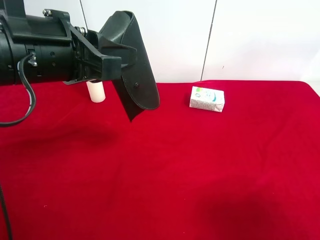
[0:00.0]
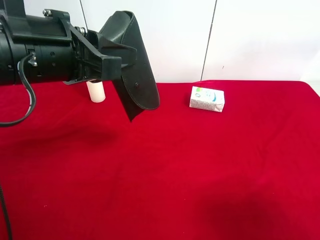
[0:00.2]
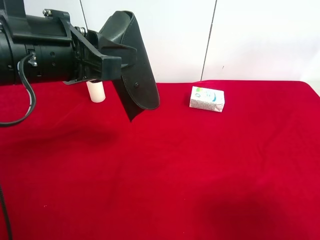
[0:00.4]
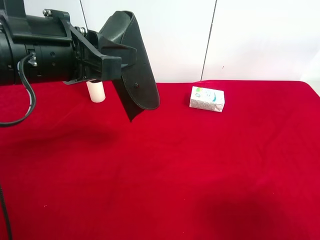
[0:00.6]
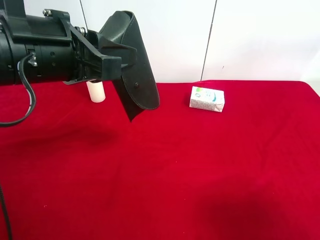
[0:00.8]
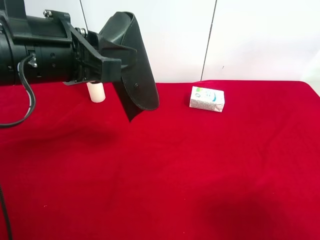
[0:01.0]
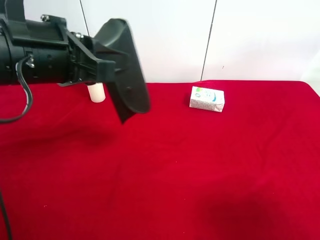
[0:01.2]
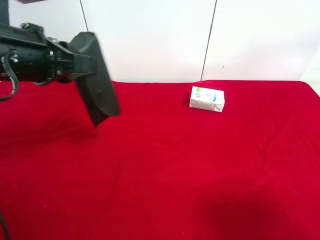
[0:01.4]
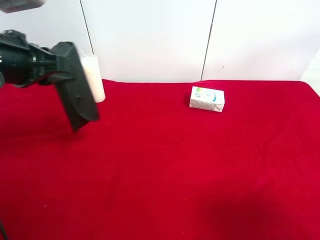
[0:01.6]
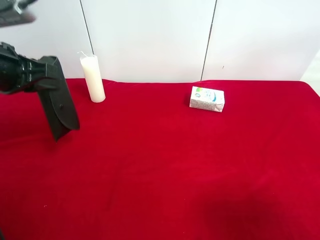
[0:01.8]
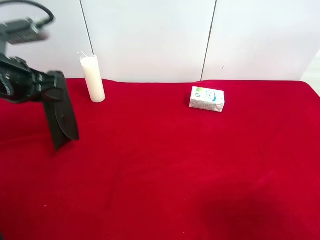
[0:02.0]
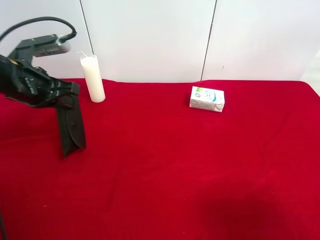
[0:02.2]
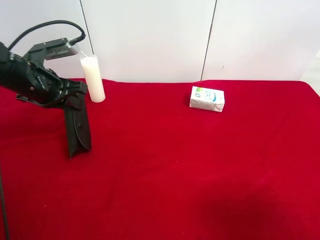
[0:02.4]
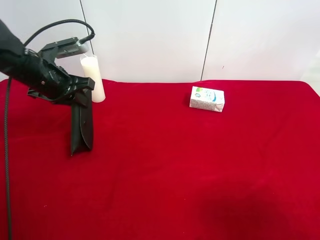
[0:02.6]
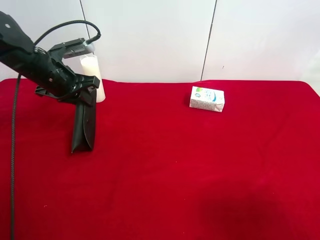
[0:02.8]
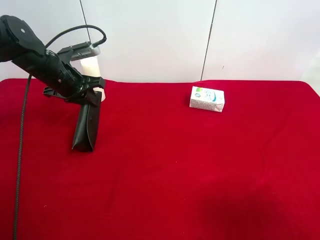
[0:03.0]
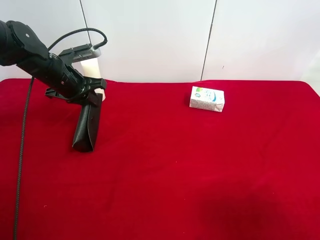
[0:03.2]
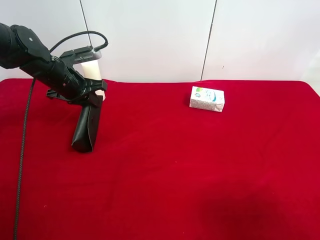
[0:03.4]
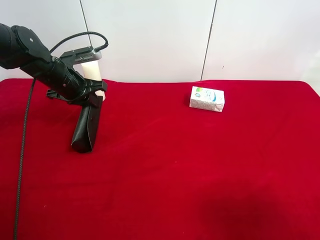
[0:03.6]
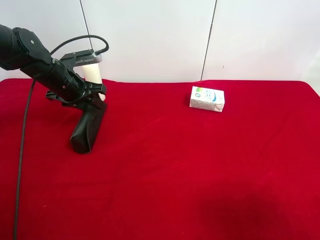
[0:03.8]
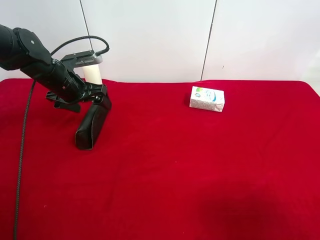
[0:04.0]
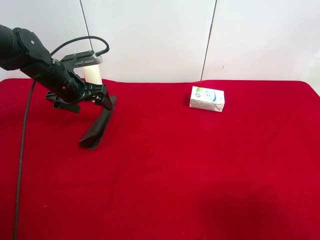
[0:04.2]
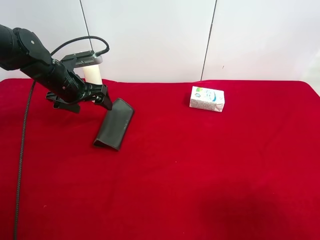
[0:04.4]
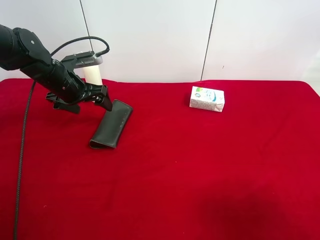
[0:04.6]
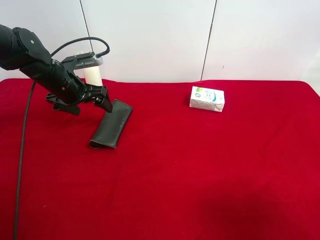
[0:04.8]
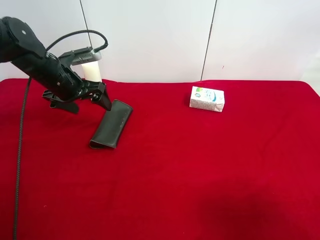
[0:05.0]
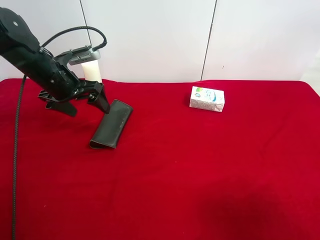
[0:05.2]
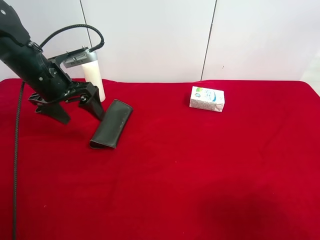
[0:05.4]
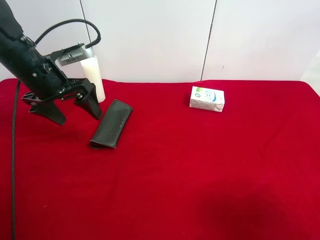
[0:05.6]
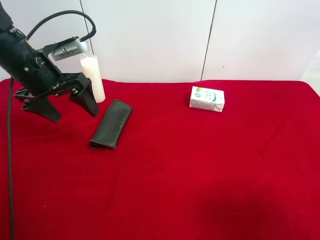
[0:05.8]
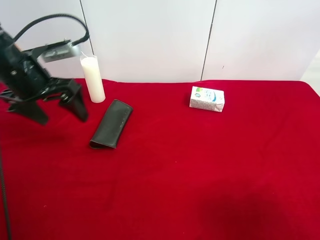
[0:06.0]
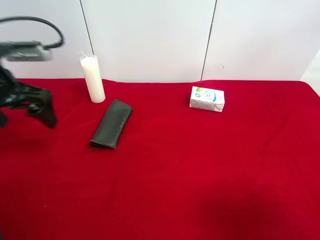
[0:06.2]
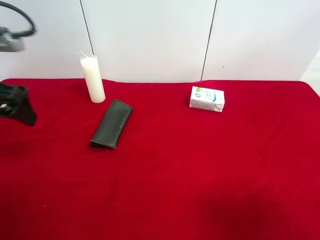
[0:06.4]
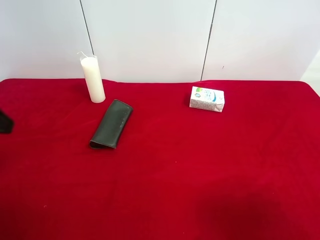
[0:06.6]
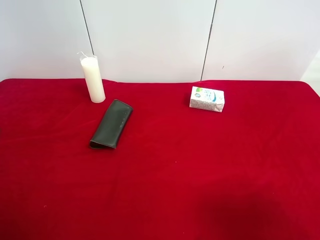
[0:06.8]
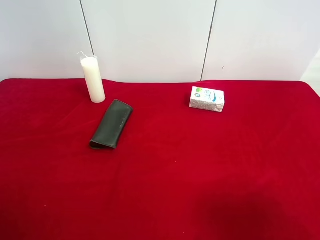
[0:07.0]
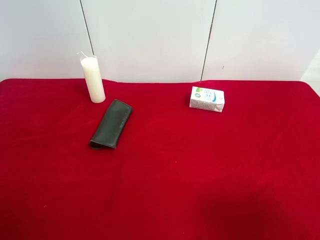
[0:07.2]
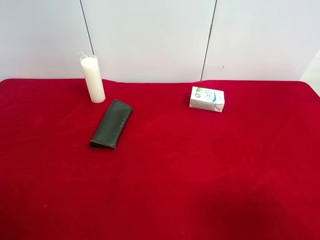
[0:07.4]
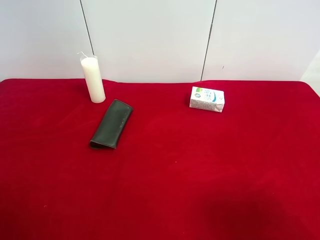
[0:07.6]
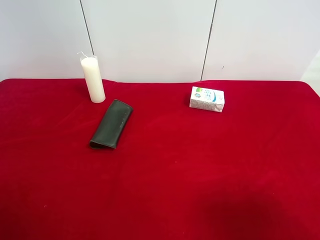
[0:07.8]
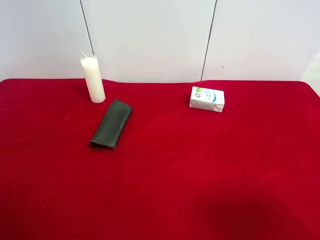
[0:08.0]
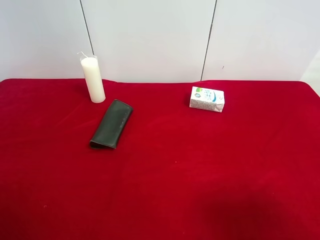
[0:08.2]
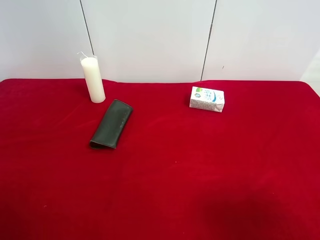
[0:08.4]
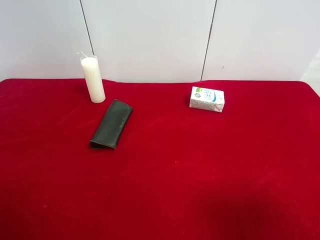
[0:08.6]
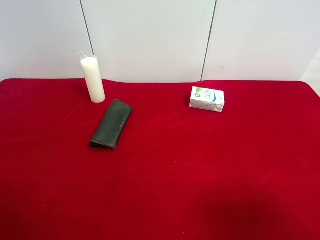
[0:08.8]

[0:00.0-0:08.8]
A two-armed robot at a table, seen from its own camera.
Task of the whole recording: use the right gripper to pick up the item and transfer it from the right gripper to the left gripper.
Step, 0:00.0 to 0:04.0: The left gripper places eyeglass case on the left side of the table.
0:00.0 to 0:01.4: The left gripper moves to the left, about 5 cm.
0:01.4 to 0:03.0: The left gripper moves forward and downward, about 20 cm.
0:03.0 to 0:04.4: The left gripper opens.
0:04.4 to 0:05.8: The left gripper travels upward and backward by roughly 10 cm.
0:05.8 to 0:07.4: The left gripper heads backward, covering some 30 cm.

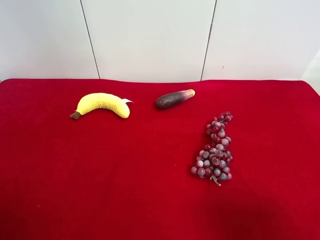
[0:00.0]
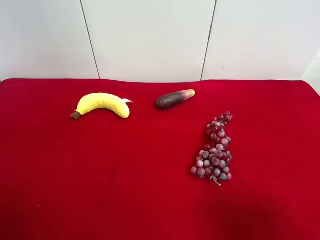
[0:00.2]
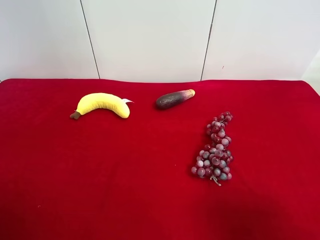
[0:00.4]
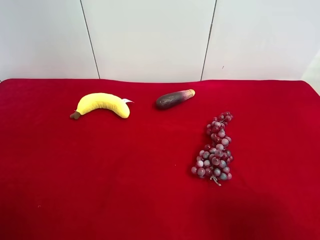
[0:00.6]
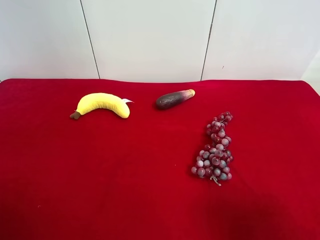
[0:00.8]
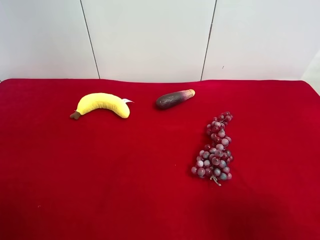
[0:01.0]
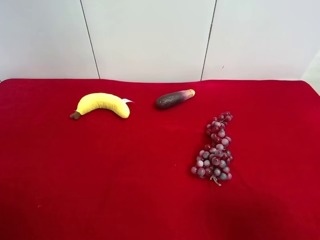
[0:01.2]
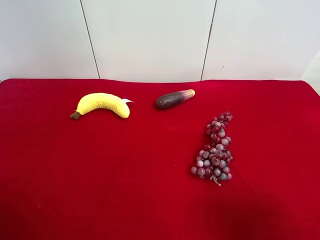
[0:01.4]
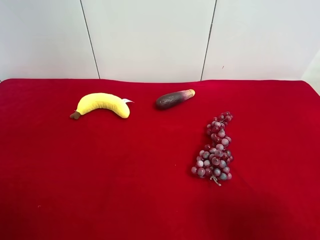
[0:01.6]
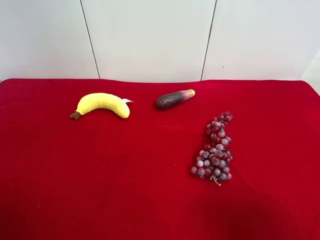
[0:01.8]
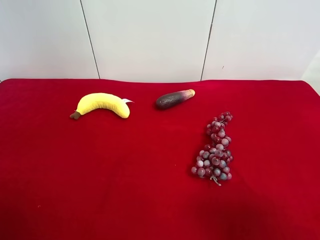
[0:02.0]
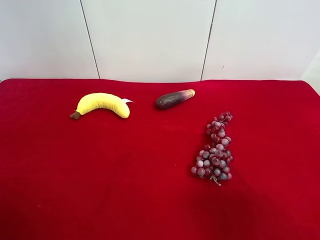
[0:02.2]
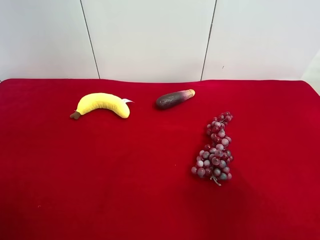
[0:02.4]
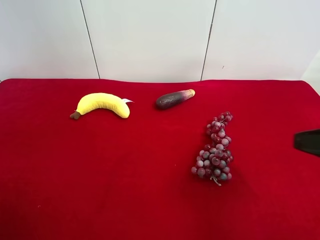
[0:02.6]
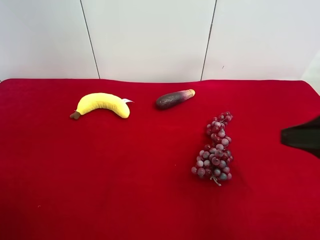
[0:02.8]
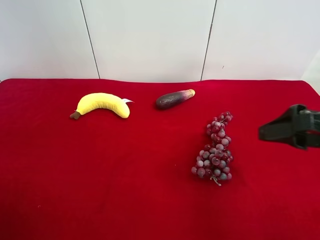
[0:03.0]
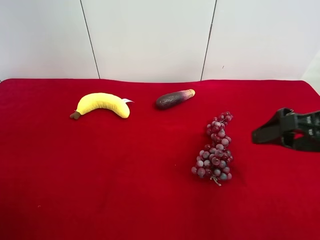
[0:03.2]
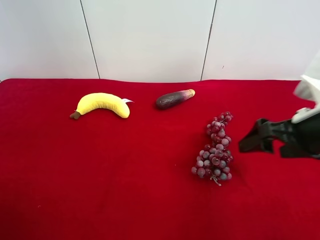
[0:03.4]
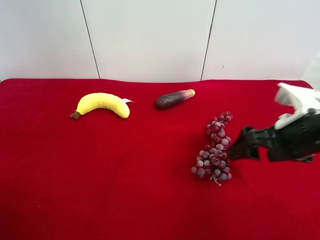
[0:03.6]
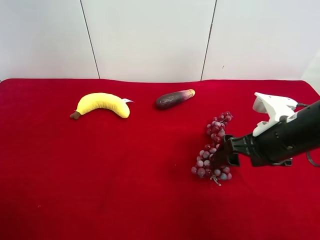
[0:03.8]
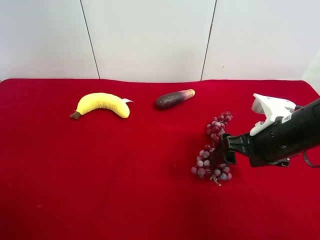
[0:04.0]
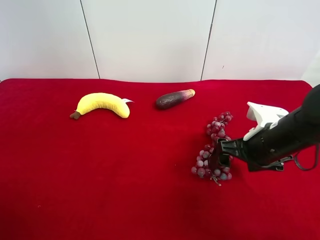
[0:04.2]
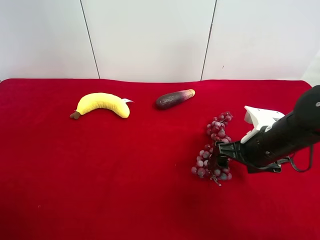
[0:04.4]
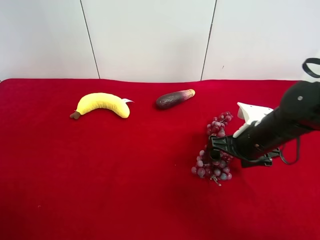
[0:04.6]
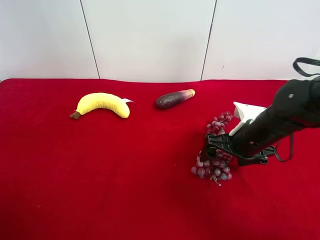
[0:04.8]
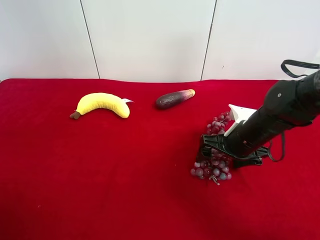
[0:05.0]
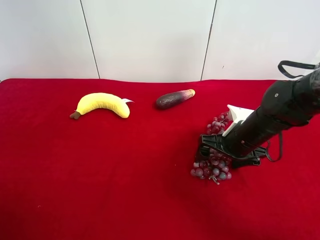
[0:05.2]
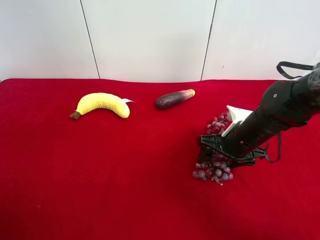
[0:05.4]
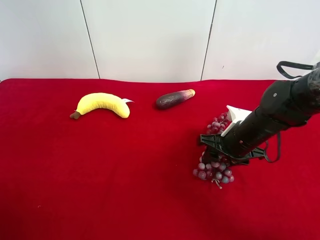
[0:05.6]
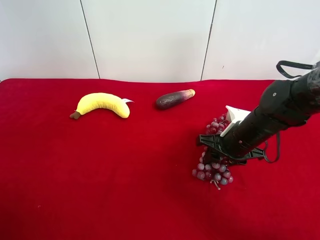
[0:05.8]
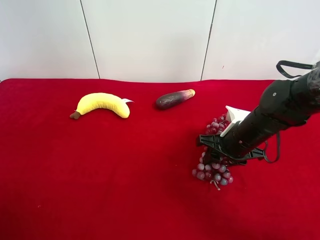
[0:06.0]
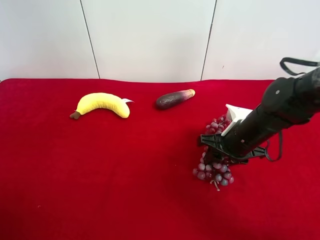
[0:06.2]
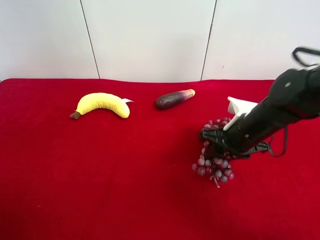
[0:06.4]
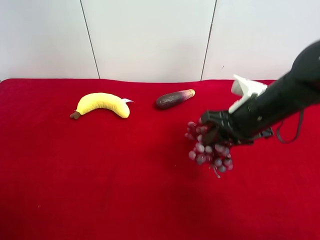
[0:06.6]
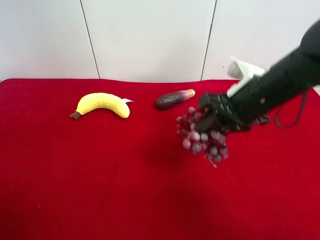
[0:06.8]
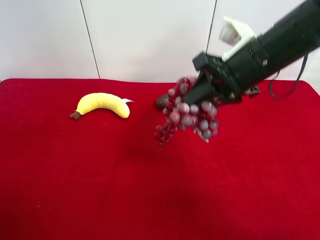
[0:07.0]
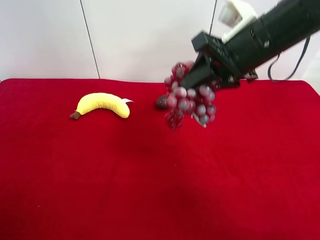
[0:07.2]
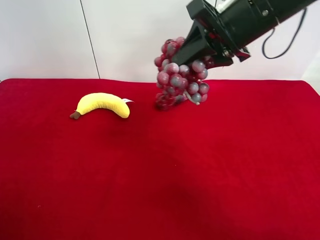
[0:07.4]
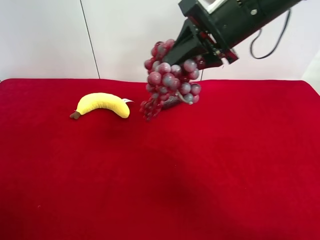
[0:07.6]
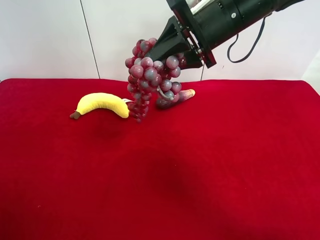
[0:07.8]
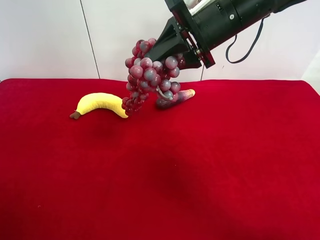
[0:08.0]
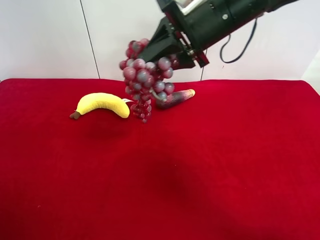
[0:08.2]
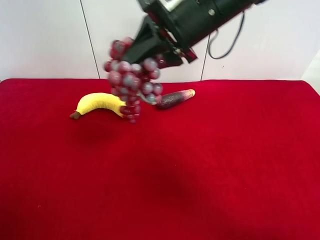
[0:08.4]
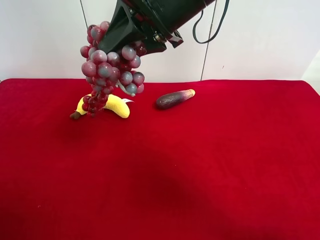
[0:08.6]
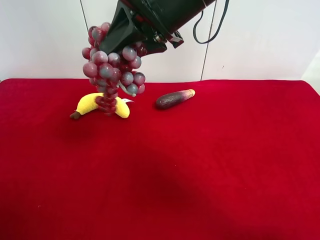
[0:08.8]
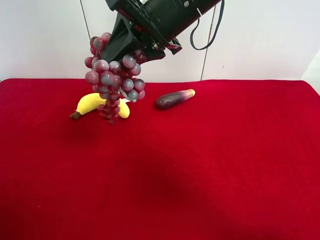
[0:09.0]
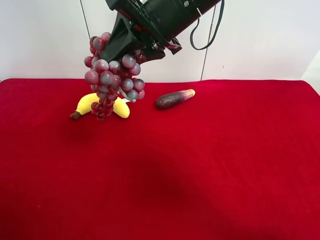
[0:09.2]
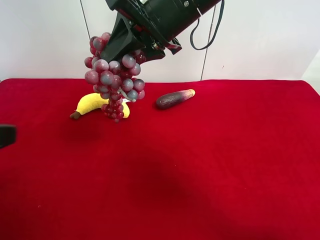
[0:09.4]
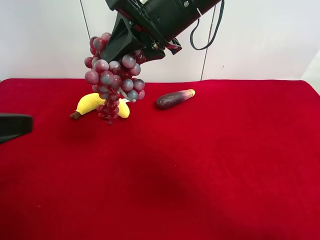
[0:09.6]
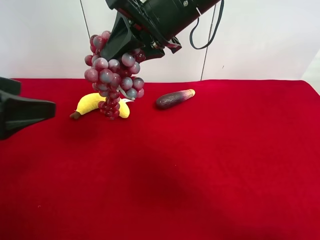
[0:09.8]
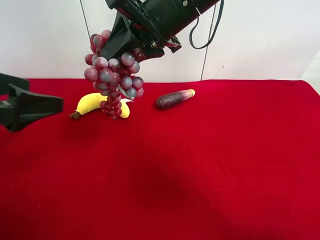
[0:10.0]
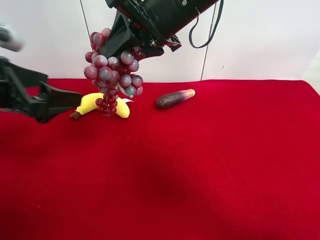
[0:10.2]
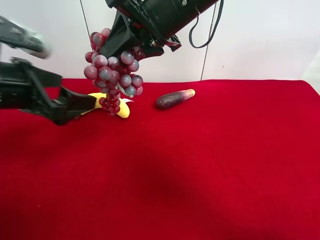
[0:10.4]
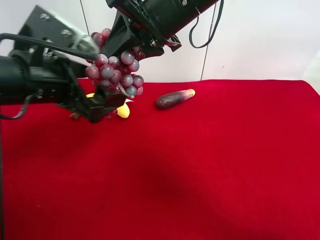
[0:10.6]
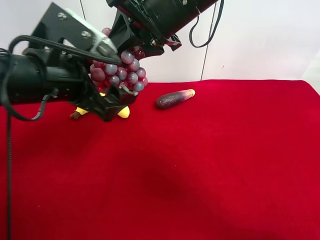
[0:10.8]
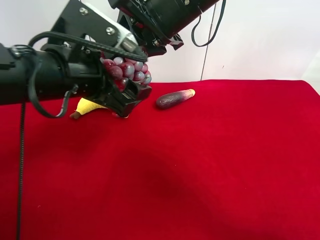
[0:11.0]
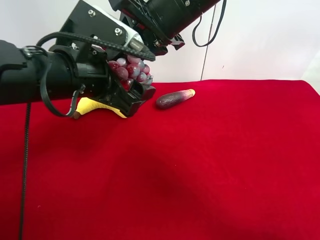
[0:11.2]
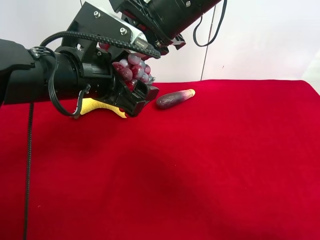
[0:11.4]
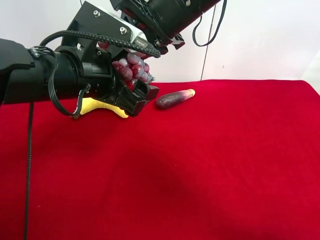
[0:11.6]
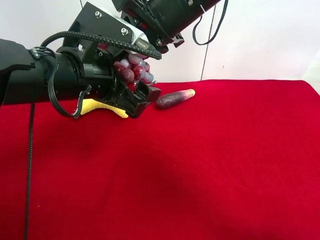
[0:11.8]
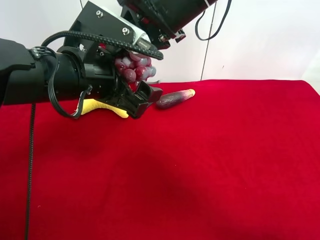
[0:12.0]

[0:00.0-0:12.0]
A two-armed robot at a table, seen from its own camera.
Task of the whole recording: use the right gripper to pick up the item and transfer it from the right gripper to the left gripper.
Step, 0:00.0 to 0:05.6: Use the right gripper to grab the grape on the right side of the table.
0:00.0 to 0:01.6: Both grippers stay about where they are.
0:01.6 to 0:03.0: The right gripper heads forward, covering roughly 15 cm.
0:03.0 to 0:04.4: The right gripper is displaced downward and forward by about 15 cm.
0:04.4 to 0:06.0: The right gripper shifts by some 5 cm, and closes.
0:06.0 to 0:07.6: The right gripper travels upward by roughly 20 cm.
0:07.6 to 0:09.0: The right gripper shifts approximately 10 cm to the left.
0:09.0 to 0:10.4: The left gripper heads forward and to the right, covering approximately 20 cm.
0:10.4 to 0:12.0: The left gripper heads to the right, covering approximately 10 cm.

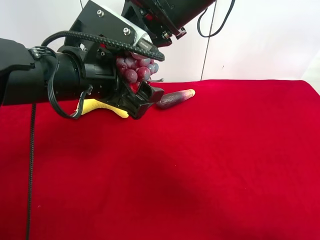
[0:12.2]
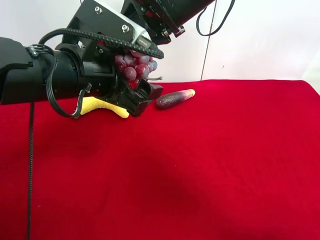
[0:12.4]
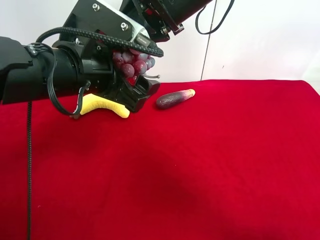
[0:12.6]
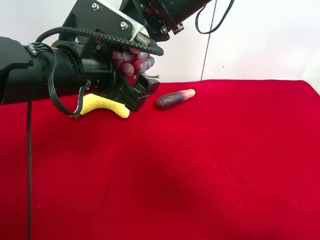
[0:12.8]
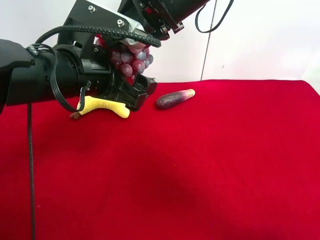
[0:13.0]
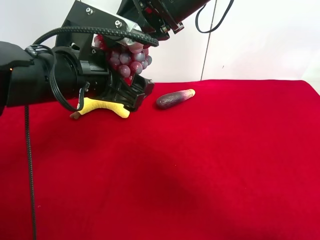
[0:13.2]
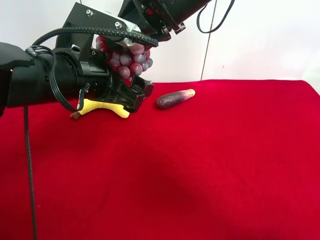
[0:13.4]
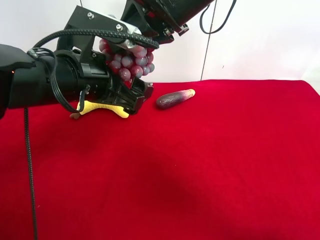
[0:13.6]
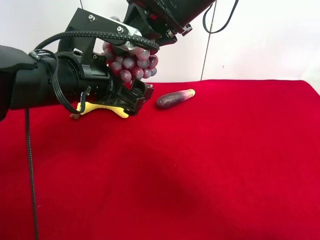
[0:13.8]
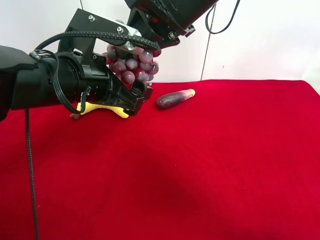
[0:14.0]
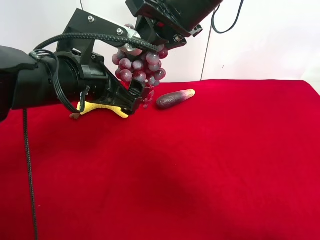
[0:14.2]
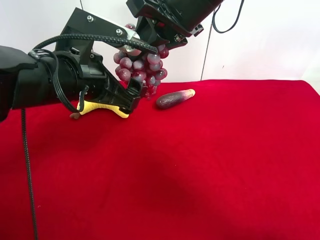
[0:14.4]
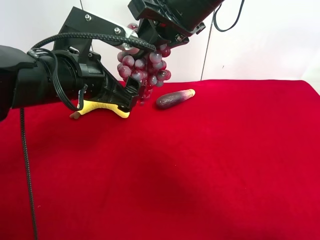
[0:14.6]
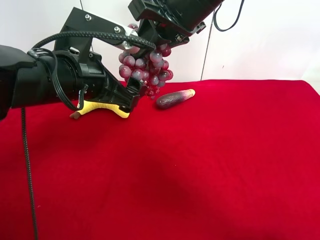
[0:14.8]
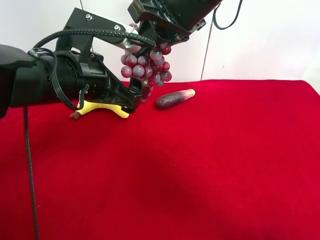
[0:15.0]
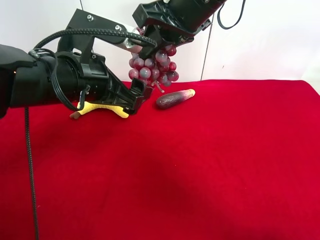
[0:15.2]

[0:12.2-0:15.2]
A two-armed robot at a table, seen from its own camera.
Task of the whole recording: use the right gripper to pick up the item and transfer it from the right gripper to the left gripper.
0:12.2 to 0:13.8: The grippers stay close to where they were, moving slightly.
0:13.8 to 0:15.2: There are only small adjustments of the grippers.
